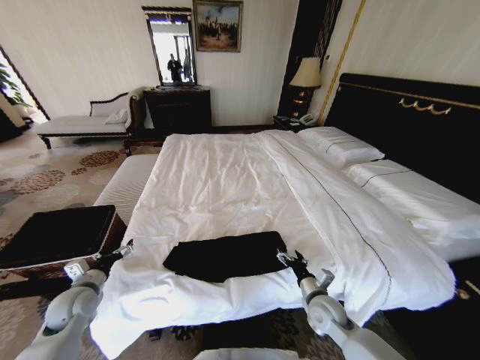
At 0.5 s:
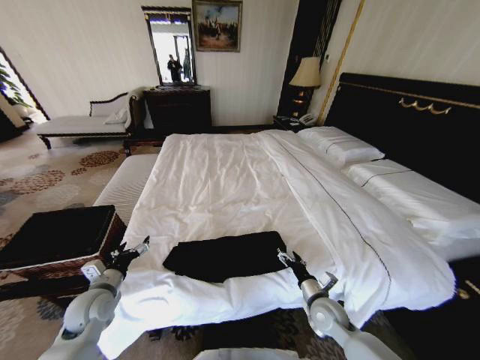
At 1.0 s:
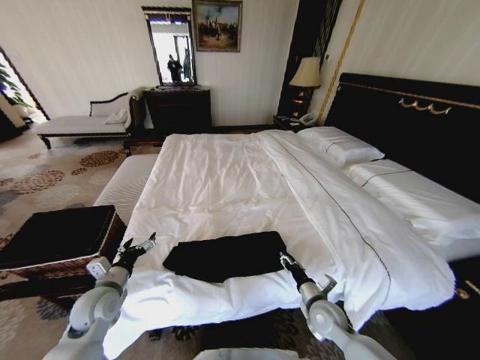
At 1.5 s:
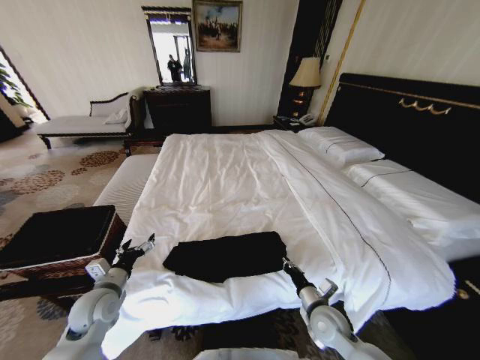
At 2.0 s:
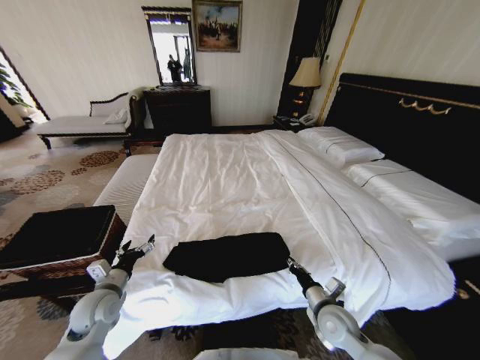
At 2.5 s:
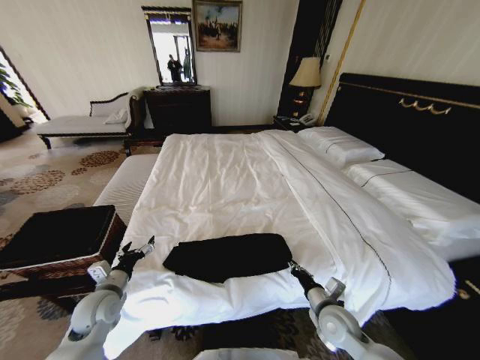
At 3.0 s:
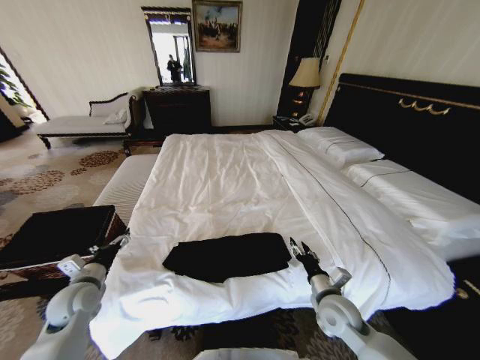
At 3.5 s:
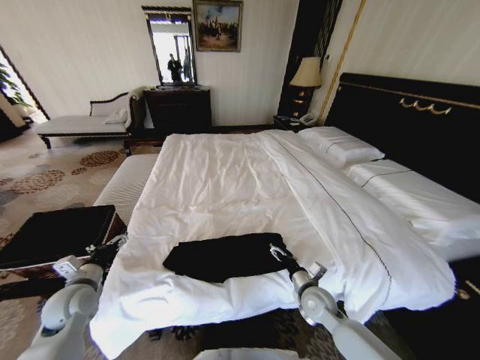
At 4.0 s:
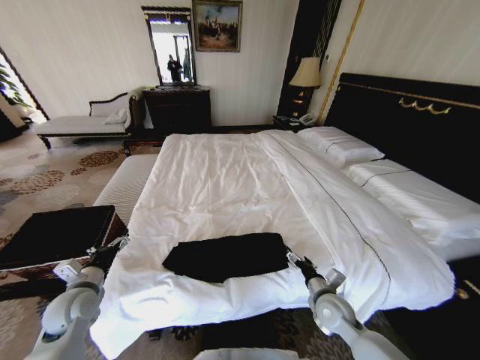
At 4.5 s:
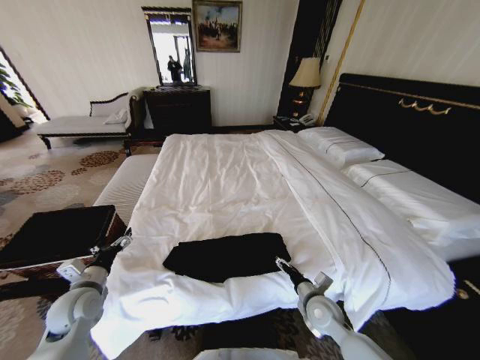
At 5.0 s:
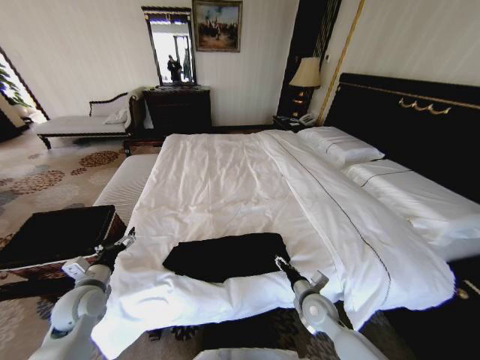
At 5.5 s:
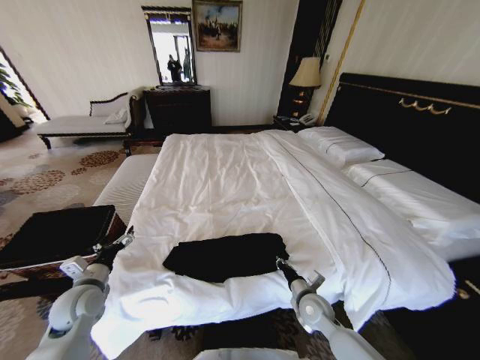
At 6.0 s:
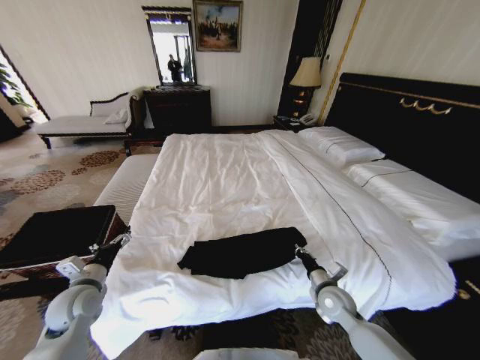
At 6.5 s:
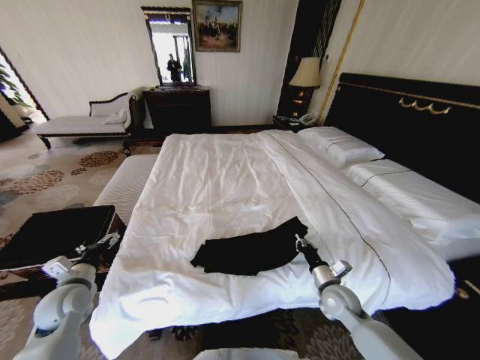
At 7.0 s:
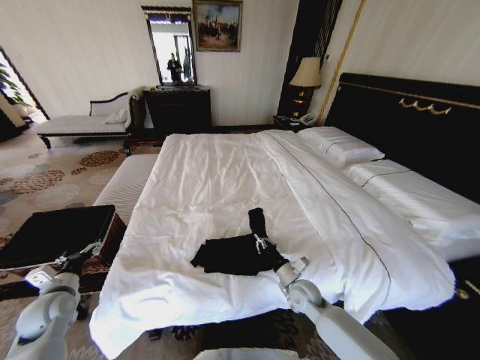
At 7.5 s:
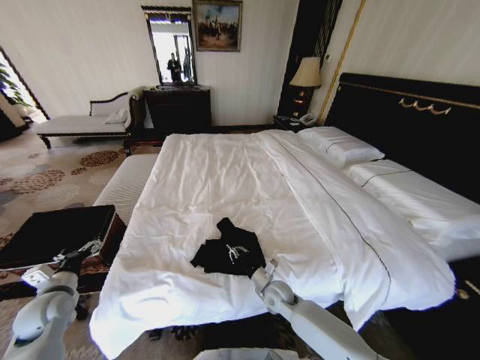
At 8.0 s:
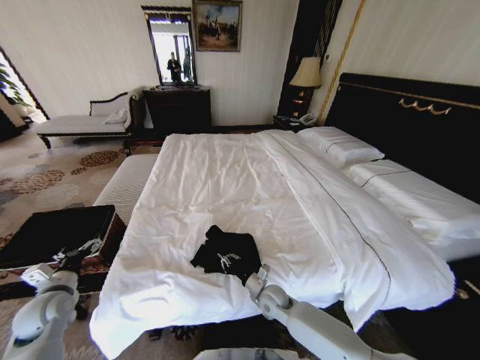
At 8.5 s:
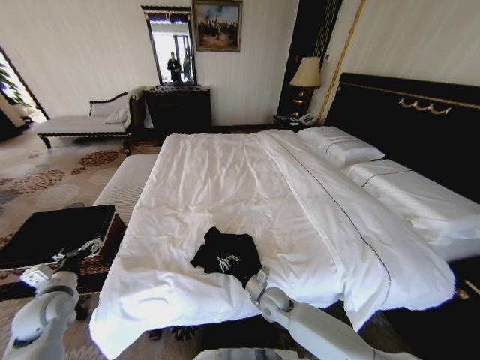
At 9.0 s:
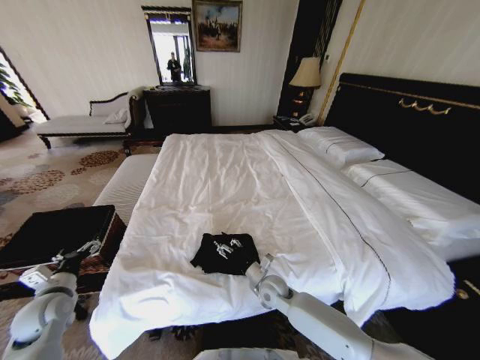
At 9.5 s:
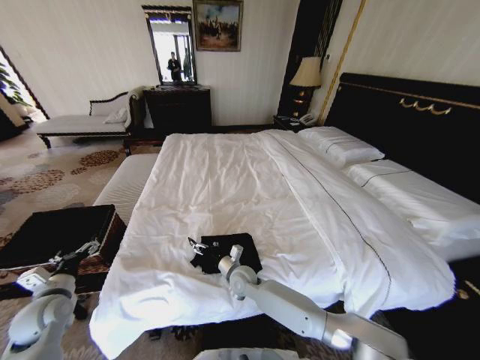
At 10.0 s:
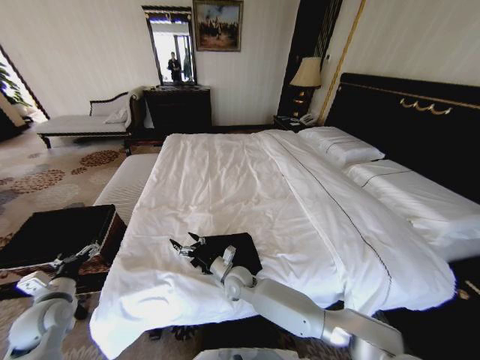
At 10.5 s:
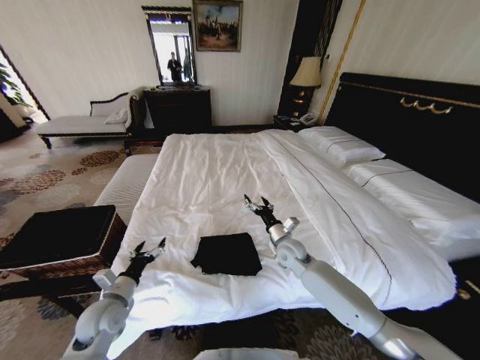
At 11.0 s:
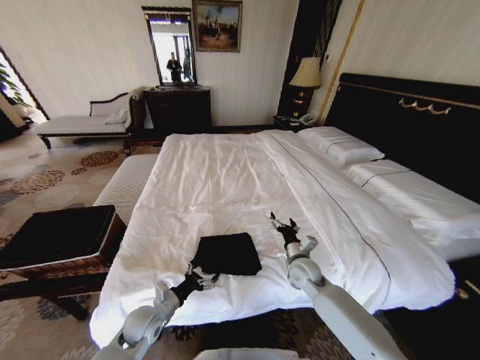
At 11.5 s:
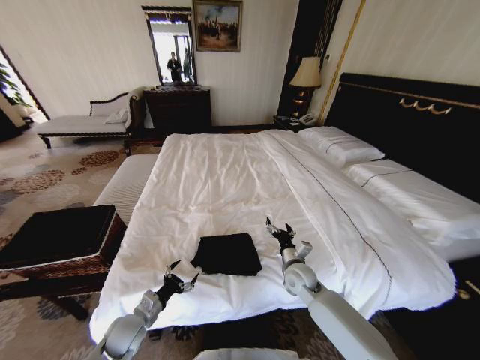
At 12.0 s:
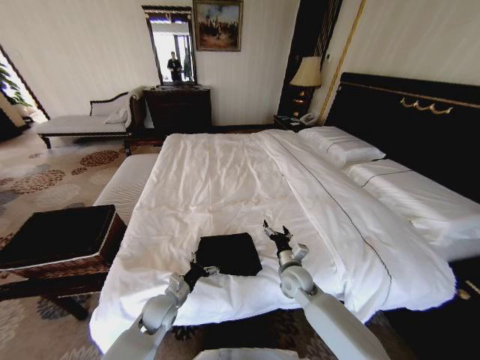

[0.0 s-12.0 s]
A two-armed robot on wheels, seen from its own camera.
Task of the whole recording: Fold the clothes on the bed and place them into the basket.
0.0 to 2.0 s: The right gripper closes up. Meanwhile the left gripper shifts approximately 10 cm to the right.
2.0 to 4.0 s: The left gripper goes about 5 cm to the left. Meanwhile the right gripper opens.
4.0 to 6.0 s: The right gripper closes up.
6.0 to 8.0 s: The left gripper shifts roughly 5 cm to the left. The right gripper travels to the left by roughly 15 cm.
8.0 to 10.0 s: The right gripper heads to the left, covering some 10 cm, and opens.
10.0 to 12.0 s: The right gripper heads to the right, covering roughly 20 cm. The left gripper goes left and right, some 25 cm each way, reversing 2 times.

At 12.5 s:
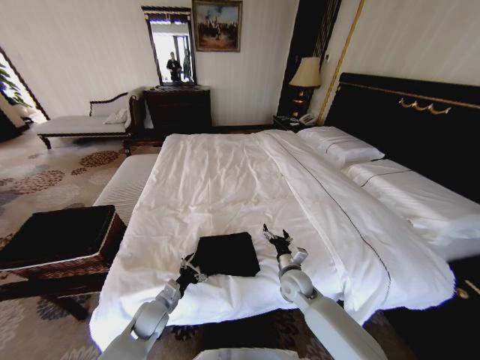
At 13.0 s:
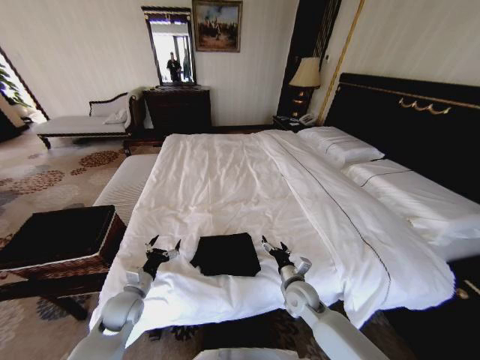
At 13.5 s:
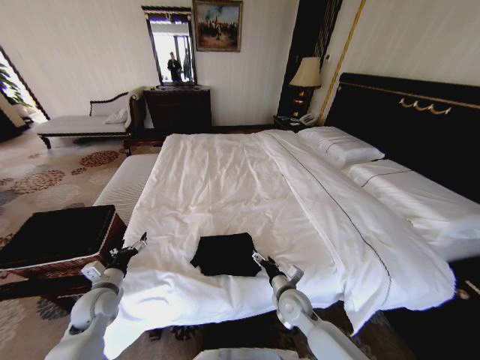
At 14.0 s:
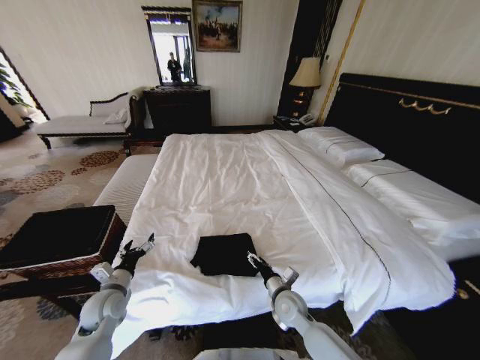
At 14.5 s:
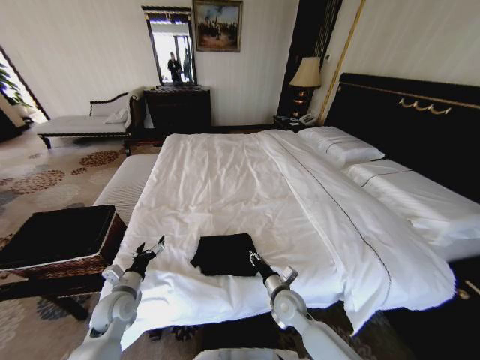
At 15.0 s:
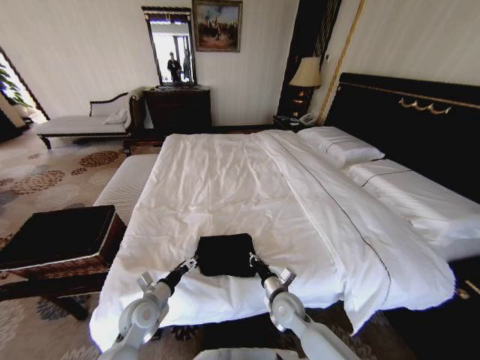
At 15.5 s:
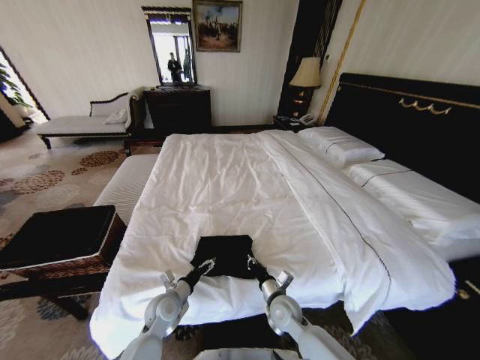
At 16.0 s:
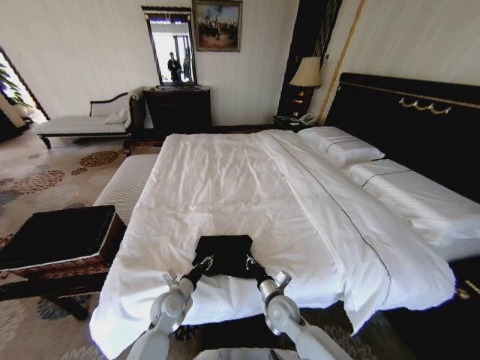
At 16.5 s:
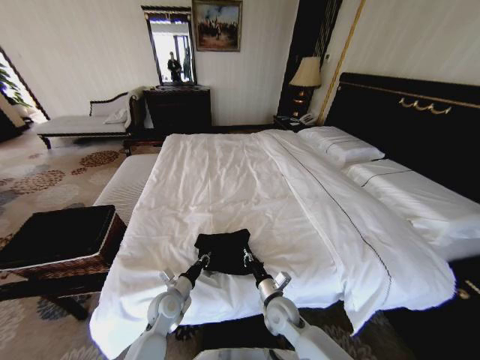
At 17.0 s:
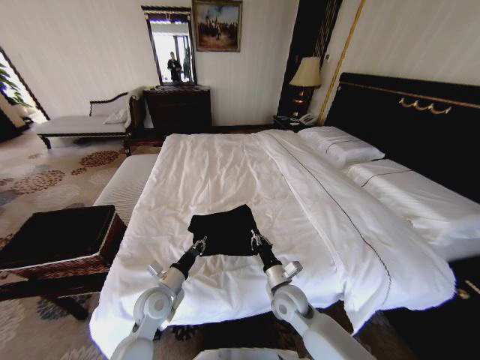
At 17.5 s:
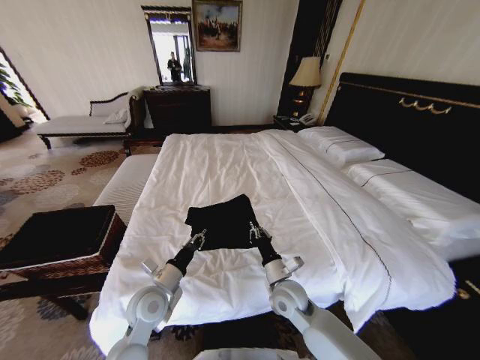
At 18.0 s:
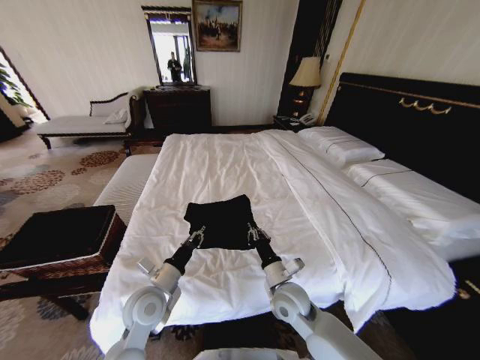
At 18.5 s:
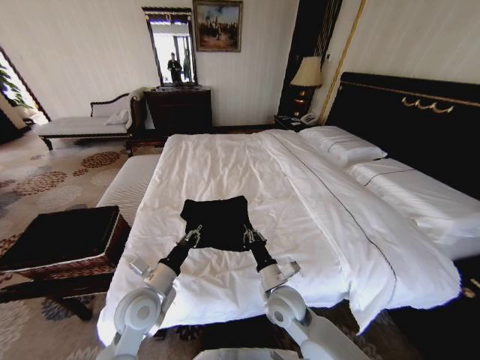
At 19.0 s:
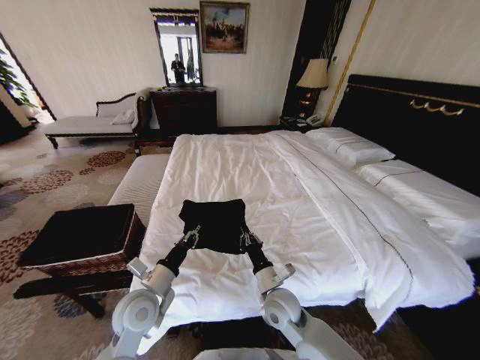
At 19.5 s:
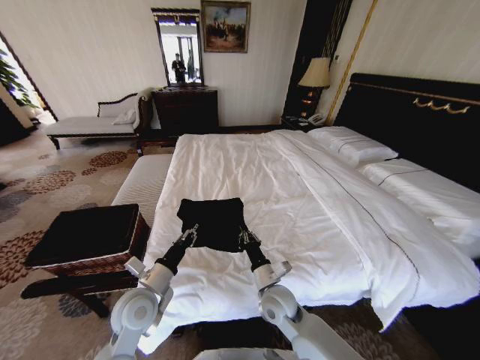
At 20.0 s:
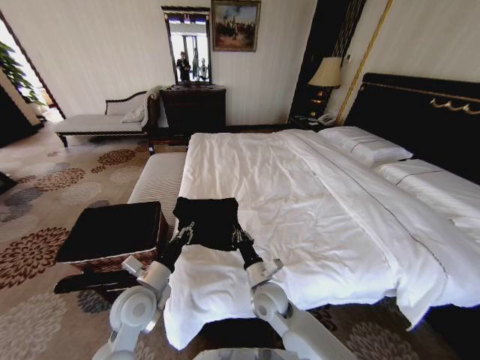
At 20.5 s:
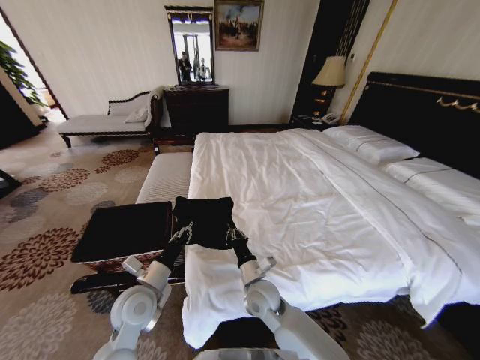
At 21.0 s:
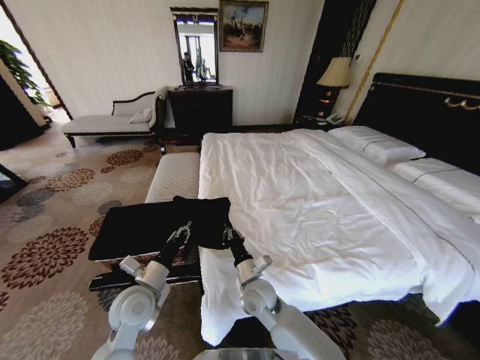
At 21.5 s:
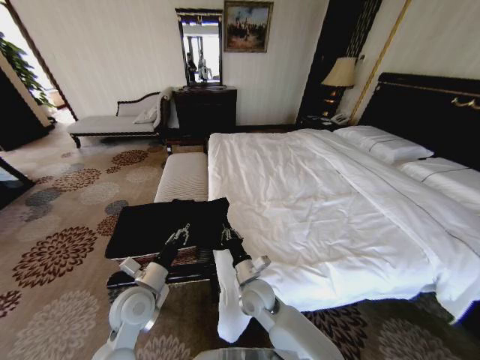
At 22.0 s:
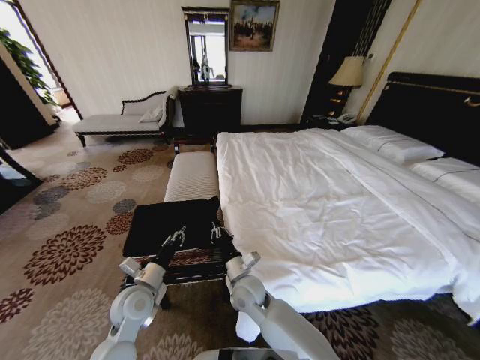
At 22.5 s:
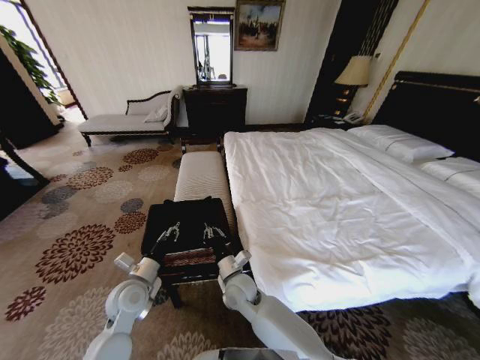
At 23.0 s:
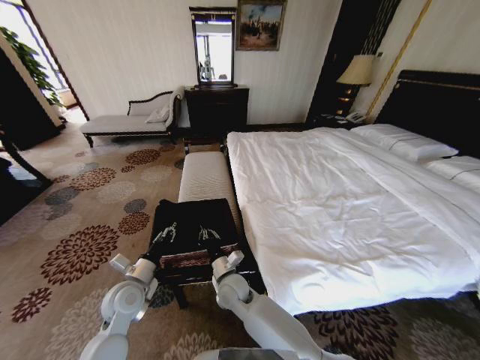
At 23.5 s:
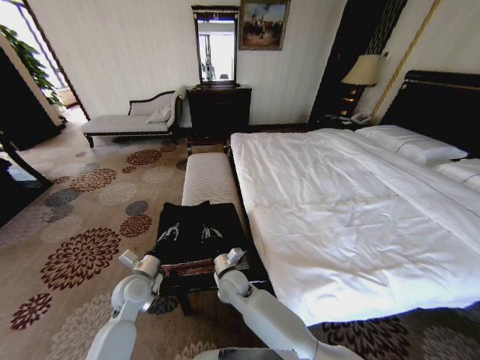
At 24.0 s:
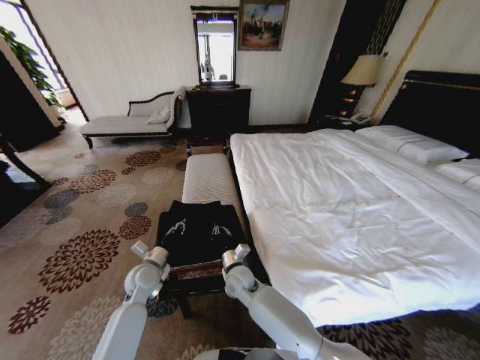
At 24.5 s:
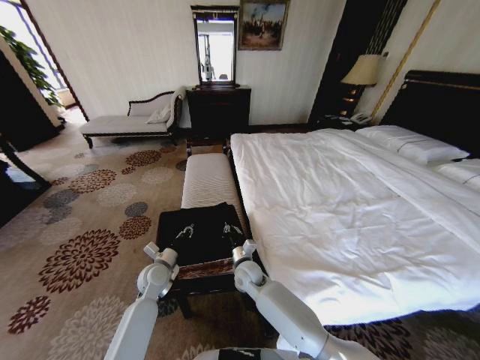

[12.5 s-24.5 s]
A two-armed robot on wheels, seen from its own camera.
Task of the whole recording: Fold the clothes on the bed and place them into the basket.
12.5 to 14.5 s: The left gripper is displaced to the left and upward by some 10 cm. The right gripper travels backward by about 5 cm, and closes its fingers.
14.5 to 16.5 s: The left gripper goes approximately 15 cm to the right and downward, and closes up.
16.5 to 18.5 s: The left gripper is displaced upward by roughly 15 cm, while the right gripper is displaced upward by about 10 cm.
18.5 to 20.5 s: The right gripper heads to the left, covering some 5 cm.
20.5 to 22.5 s: The left gripper ends up about 5 cm from where it was; the right gripper travels to the left by some 5 cm.
22.5 to 24.5 s: The right gripper heads forward, covering approximately 5 cm. Meanwhile the left gripper shifts approximately 10 cm forward and downward.

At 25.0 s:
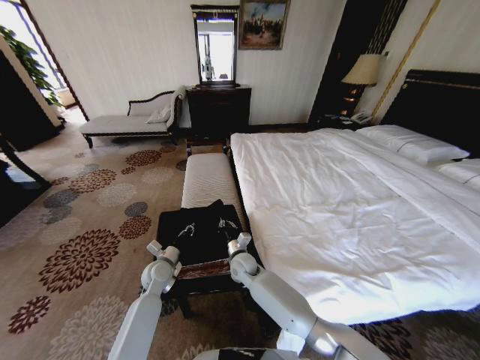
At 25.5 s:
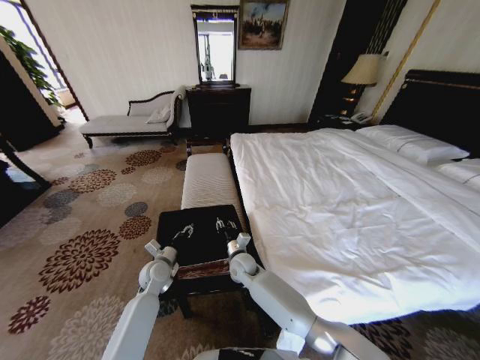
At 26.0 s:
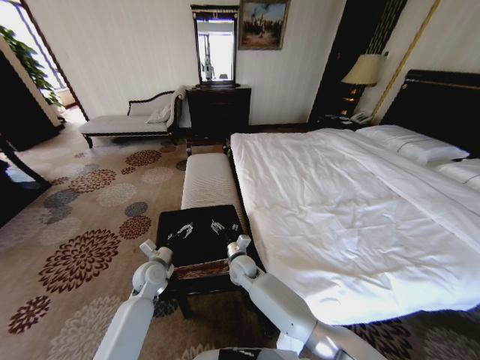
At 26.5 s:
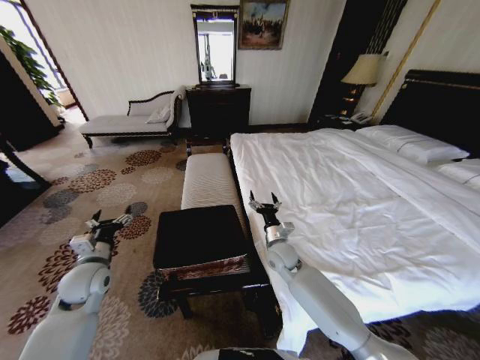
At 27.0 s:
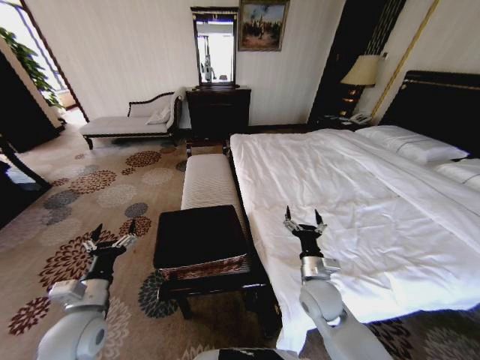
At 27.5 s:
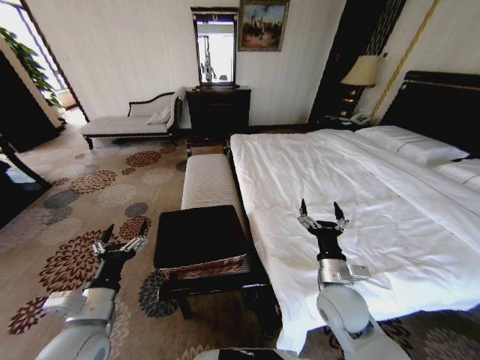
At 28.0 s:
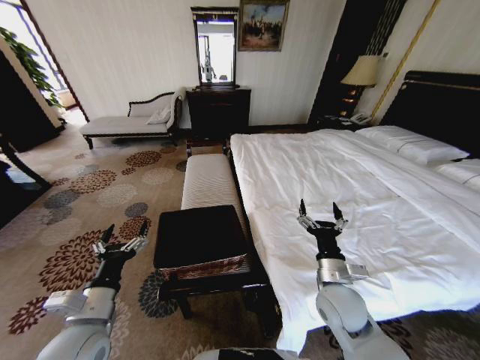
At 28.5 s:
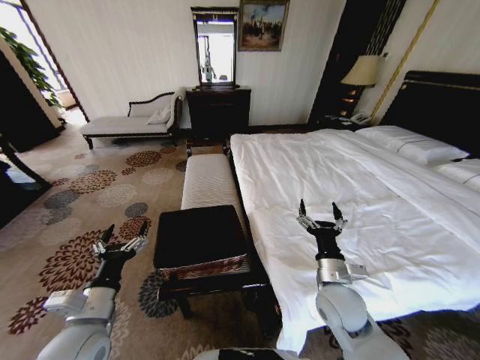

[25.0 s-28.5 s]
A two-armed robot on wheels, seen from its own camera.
Task of the whole recording: Fold the clothes on the bed and place them into the basket.
25.0 to 27.0 s: The right gripper is displaced to the right, backward and upward by approximately 25 cm, and opens its fingers. The left gripper heads backward, upward and to the left, covering roughly 20 cm, and opens its fingers.
27.0 to 28.5 s: The left gripper changes place by some 5 cm; the right gripper shifts by roughly 5 cm.
